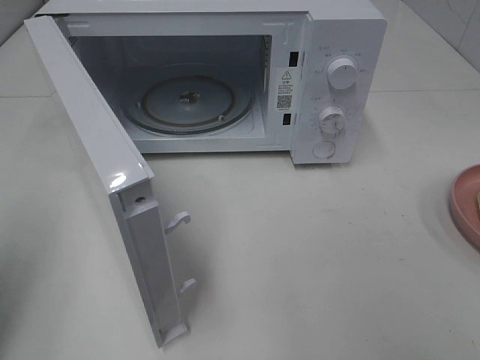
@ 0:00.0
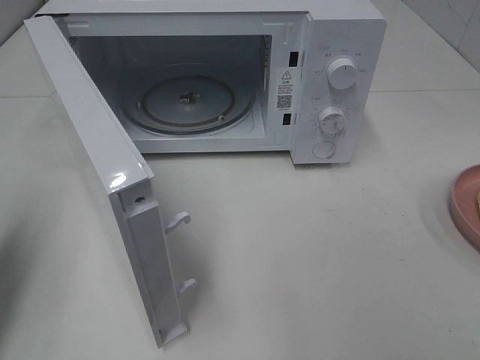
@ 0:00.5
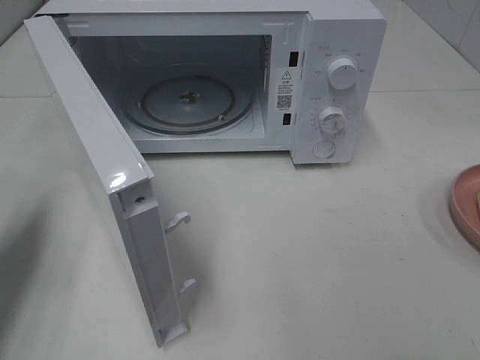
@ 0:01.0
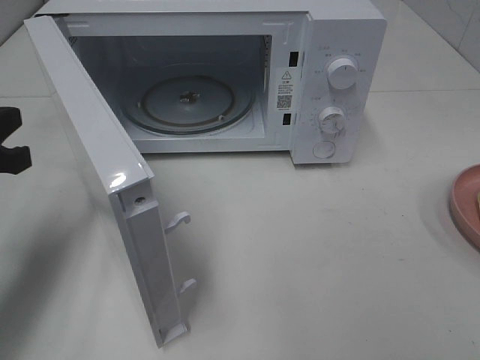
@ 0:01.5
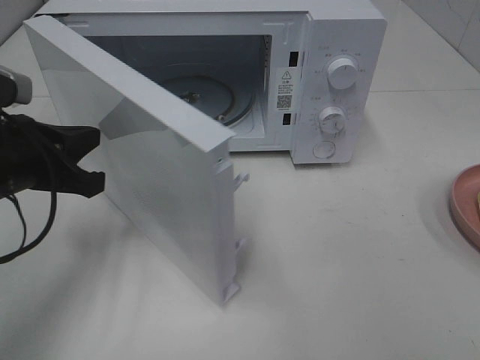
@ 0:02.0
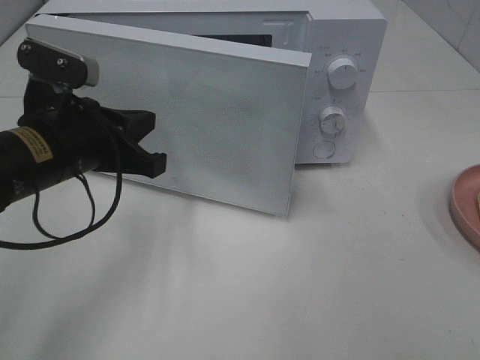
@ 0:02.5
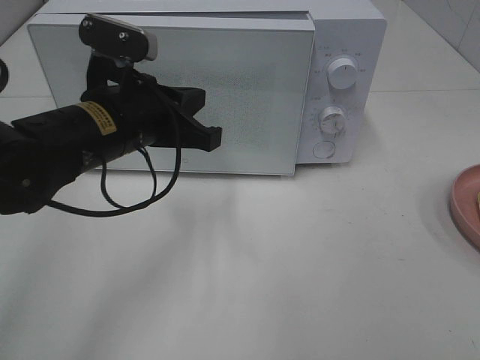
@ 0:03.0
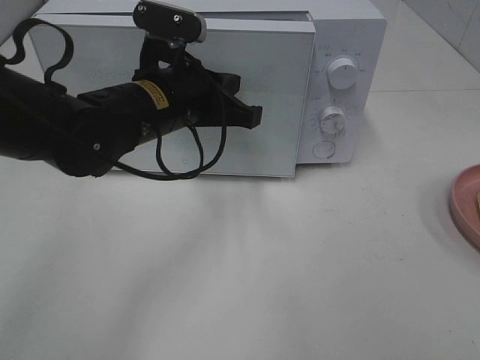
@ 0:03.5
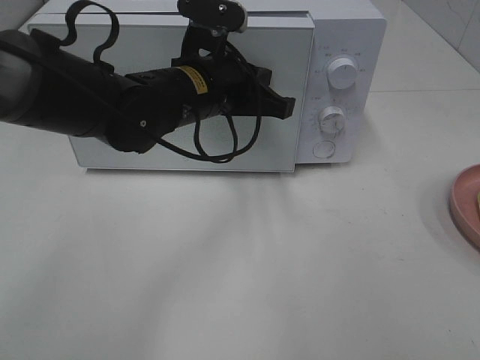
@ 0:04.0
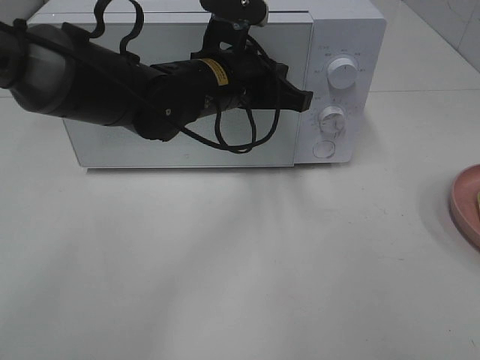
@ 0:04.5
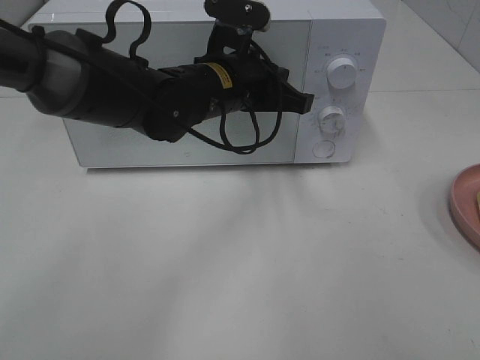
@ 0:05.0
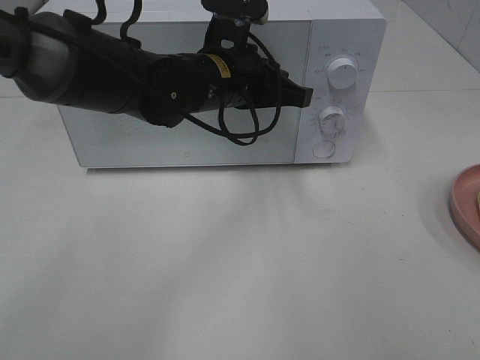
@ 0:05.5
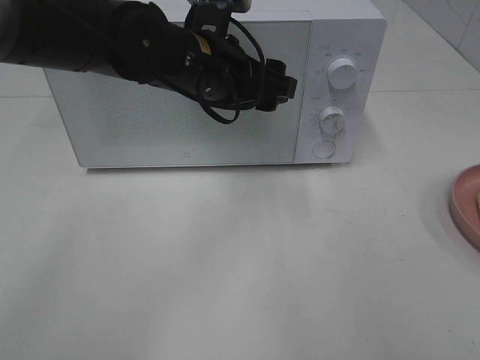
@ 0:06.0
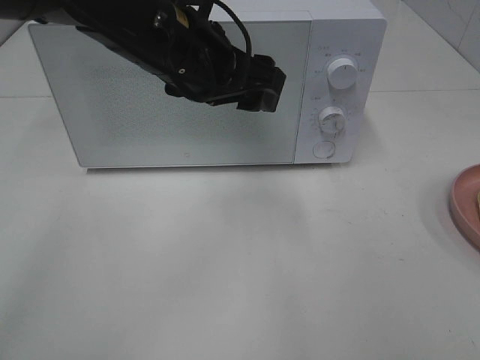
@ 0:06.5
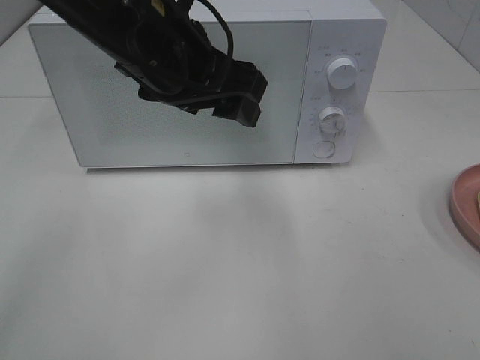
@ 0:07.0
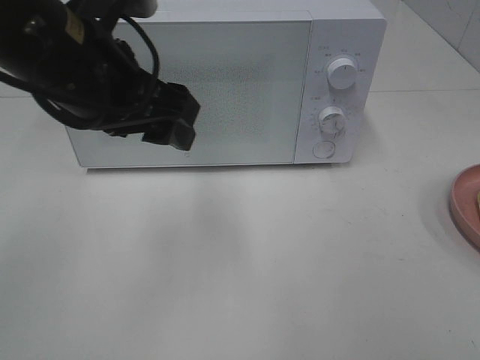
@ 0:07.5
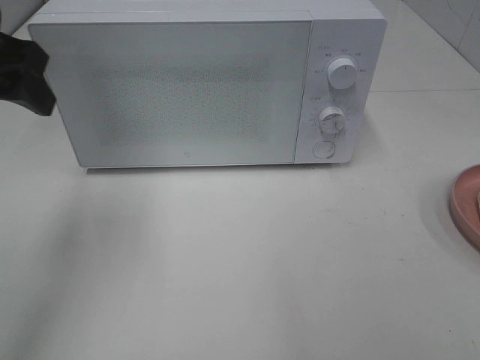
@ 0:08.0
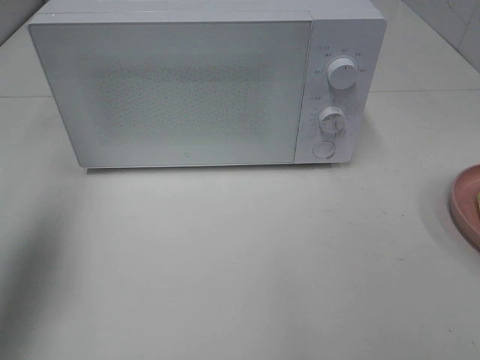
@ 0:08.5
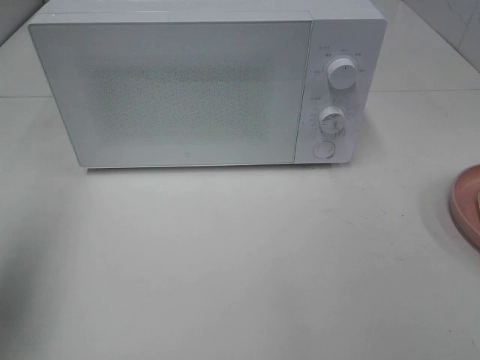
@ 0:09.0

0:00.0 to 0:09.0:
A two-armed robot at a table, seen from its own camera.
Task of the whole recording: Heat Sandwich.
Step, 0:00.0 to 0:06.0: Left hand: close the microwave door.
0:00.0 to 0:02.0: The left gripper is displaced forward, to the right and downward by some 20 cm.
0:02.0 to 0:04.5: The left gripper goes about 25 cm to the right and forward.
0:04.5 to 0:07.0: The left gripper travels upward and backward by some 10 cm, and opens.
0:07.0 to 0:09.0: The left gripper heads to the left and backward, covering approximately 30 cm.
